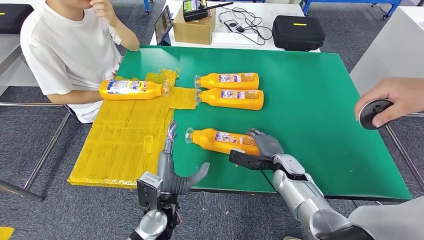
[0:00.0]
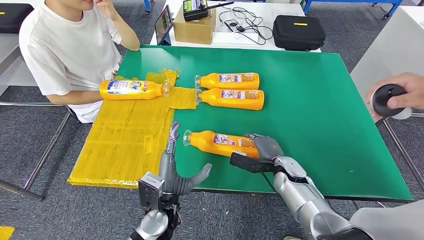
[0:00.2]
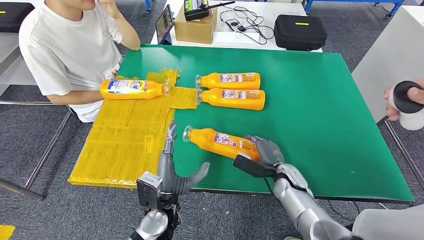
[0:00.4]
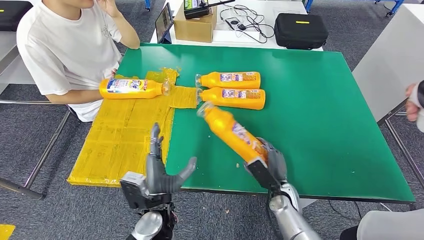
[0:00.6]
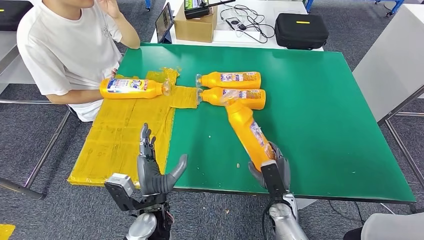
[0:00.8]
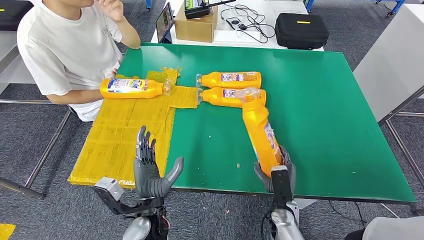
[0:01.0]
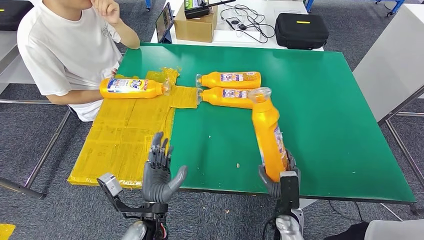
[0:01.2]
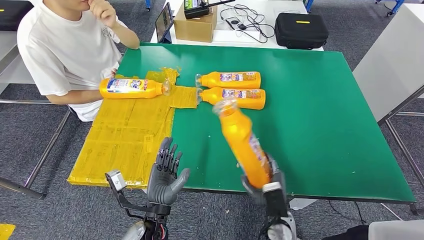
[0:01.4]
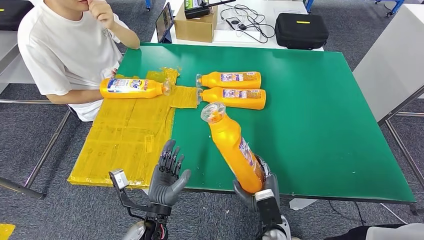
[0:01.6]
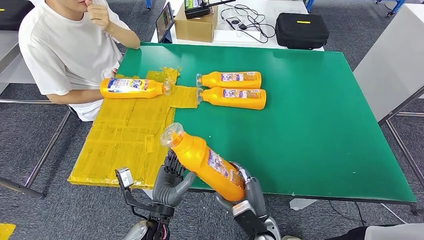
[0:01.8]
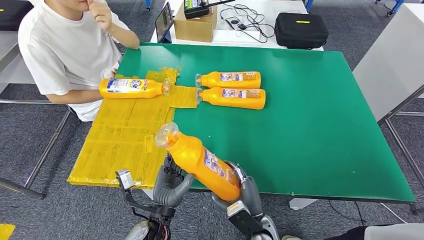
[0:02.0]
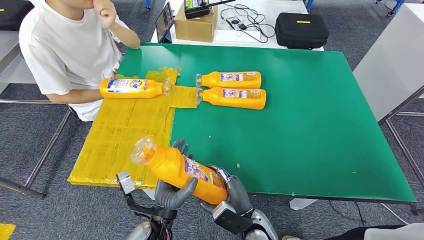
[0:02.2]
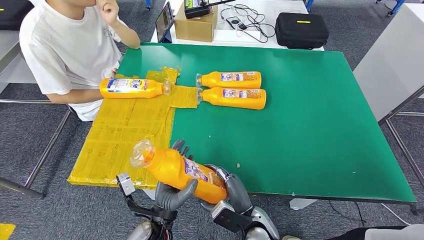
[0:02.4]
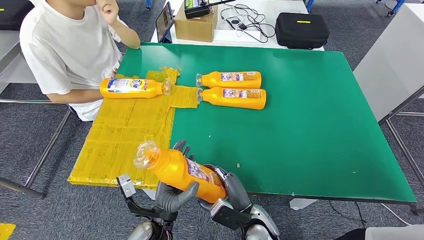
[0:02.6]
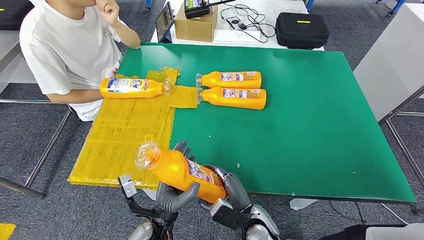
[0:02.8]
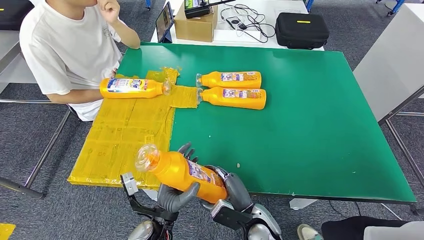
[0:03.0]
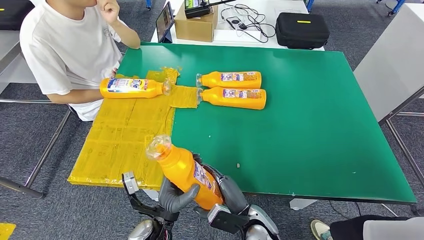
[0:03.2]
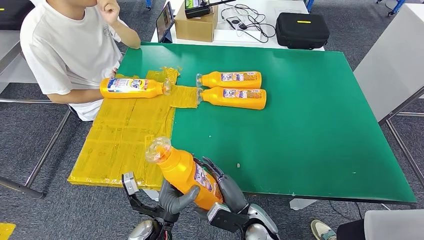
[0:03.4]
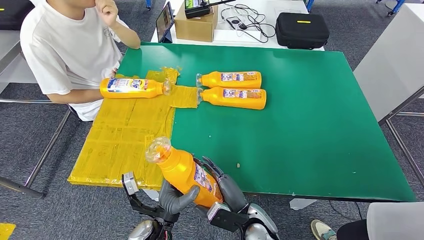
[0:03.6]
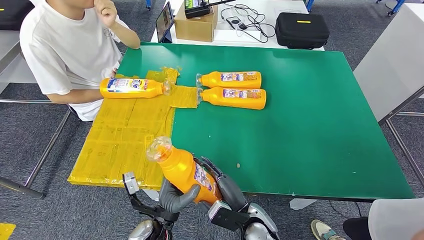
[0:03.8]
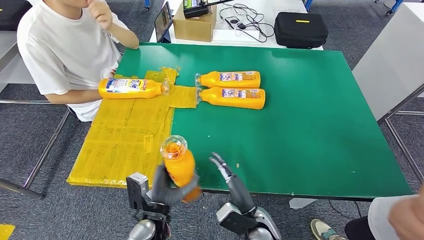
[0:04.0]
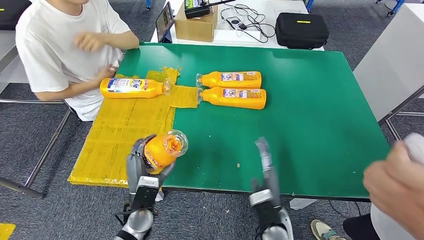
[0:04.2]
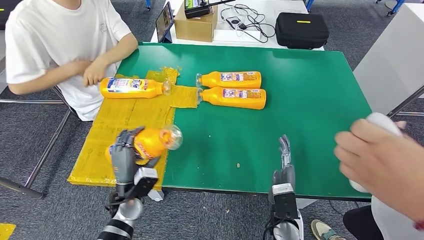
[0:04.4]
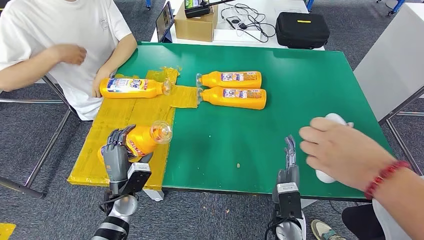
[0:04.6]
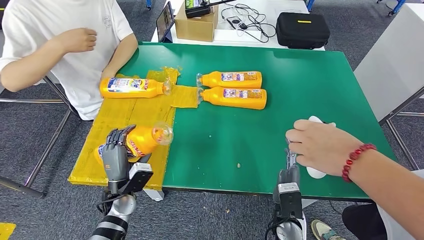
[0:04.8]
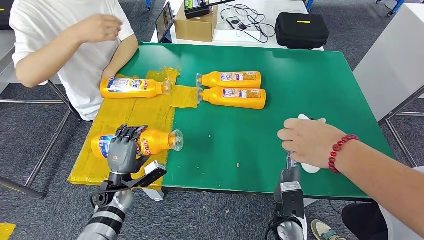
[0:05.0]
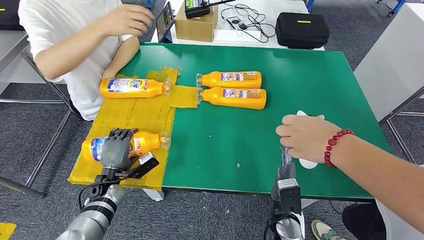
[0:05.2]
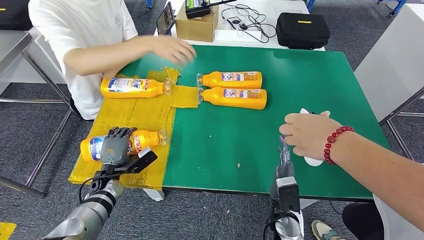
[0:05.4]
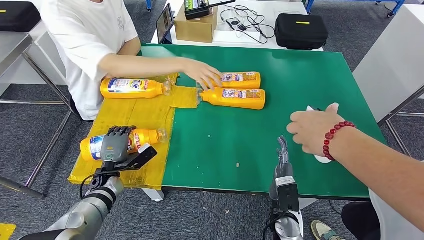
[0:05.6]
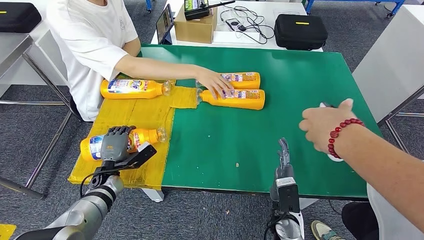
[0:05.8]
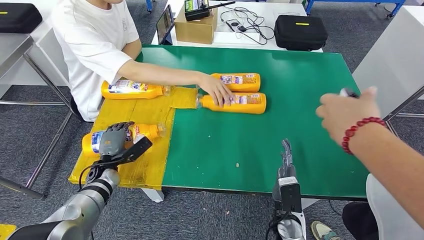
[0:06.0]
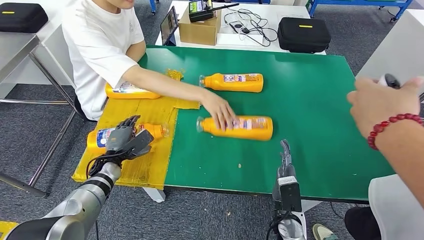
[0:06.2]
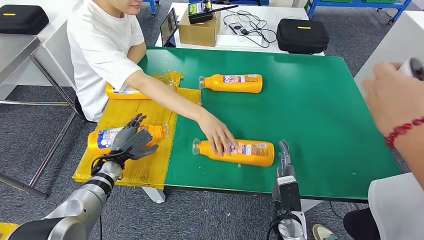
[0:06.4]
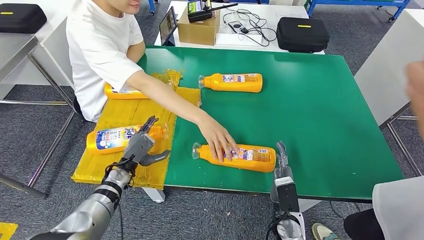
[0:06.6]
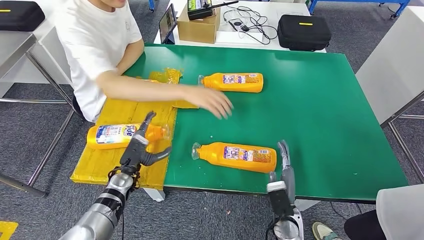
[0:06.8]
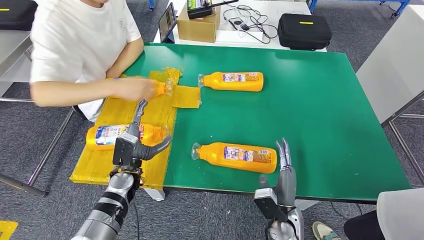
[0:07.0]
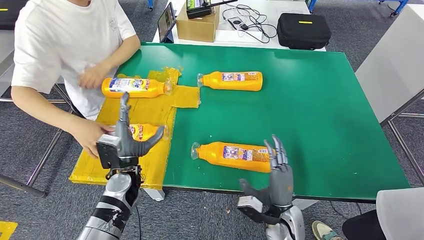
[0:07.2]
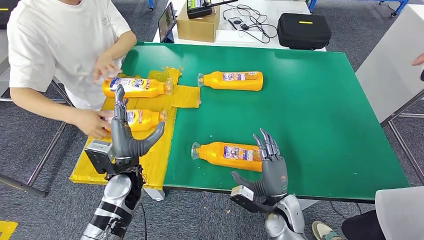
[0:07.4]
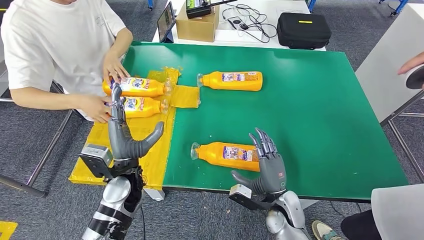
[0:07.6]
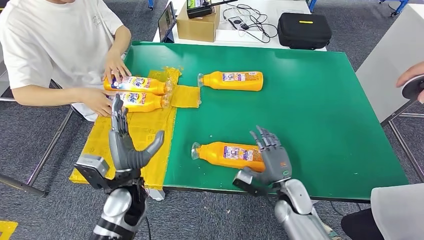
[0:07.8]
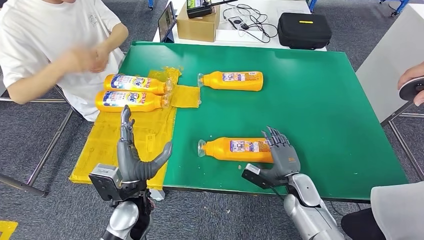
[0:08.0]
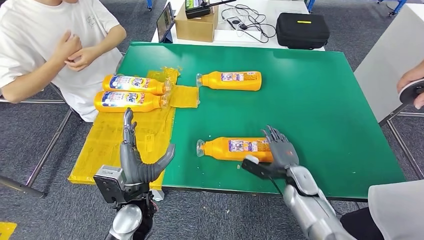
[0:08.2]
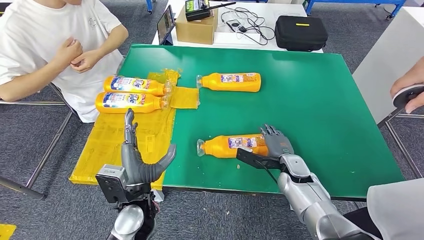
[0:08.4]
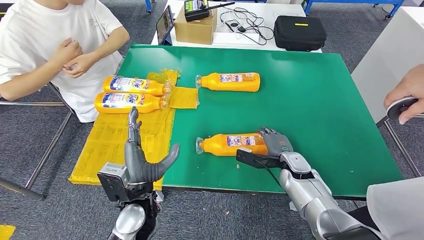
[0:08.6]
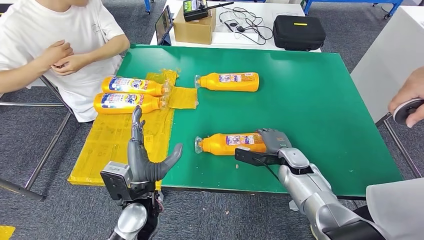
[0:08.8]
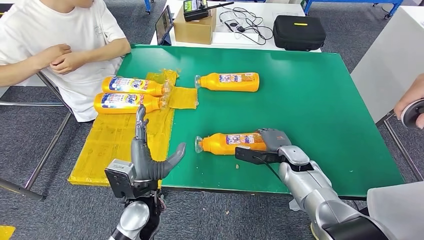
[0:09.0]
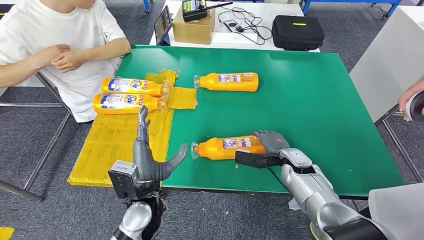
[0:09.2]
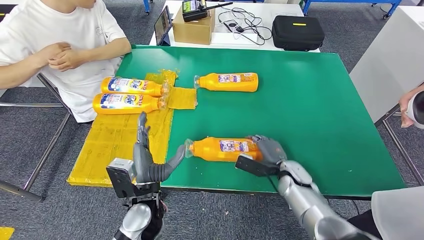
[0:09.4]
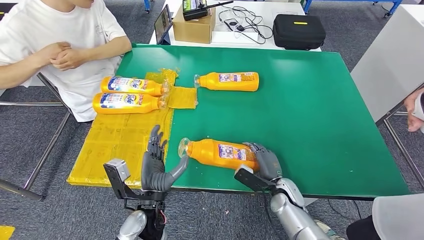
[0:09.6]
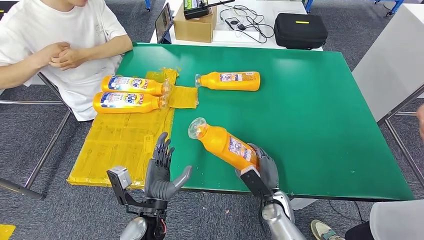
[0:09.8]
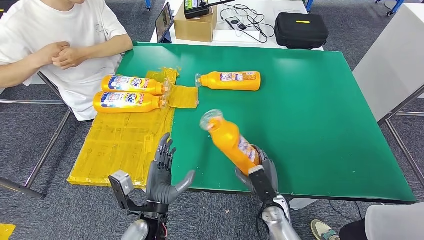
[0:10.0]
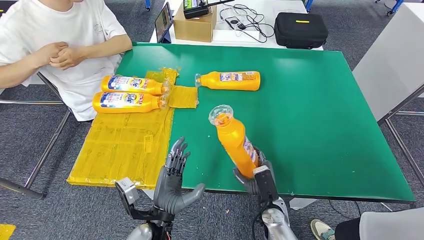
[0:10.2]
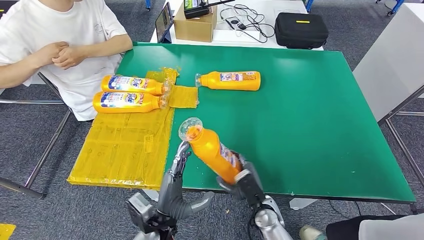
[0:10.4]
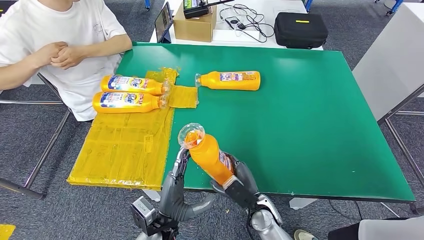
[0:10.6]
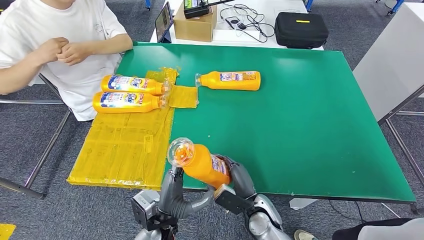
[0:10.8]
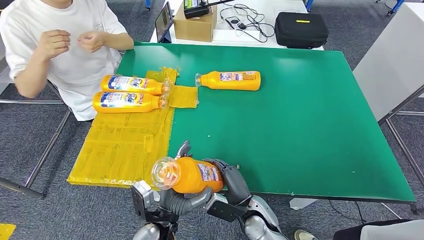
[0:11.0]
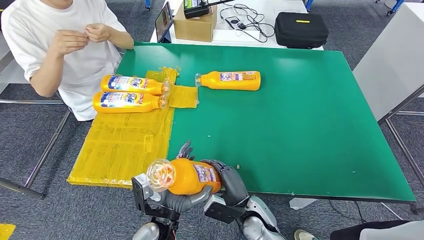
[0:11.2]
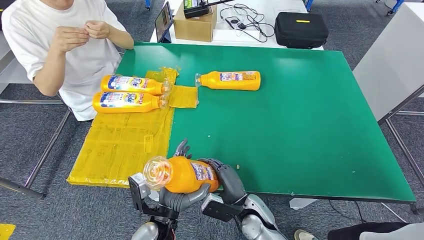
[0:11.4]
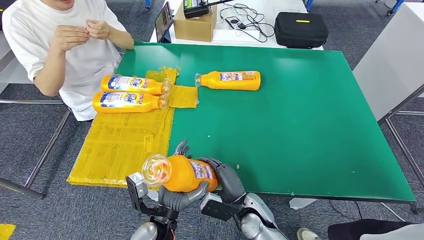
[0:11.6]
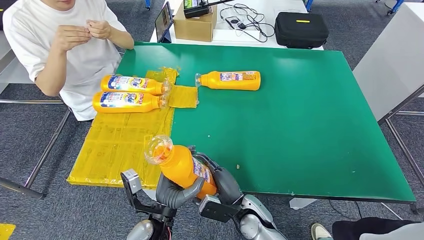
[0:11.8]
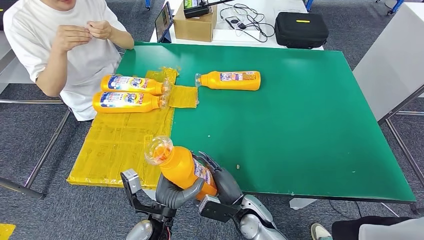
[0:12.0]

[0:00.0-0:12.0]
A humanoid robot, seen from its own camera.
Step, 0:00.0 to 0:01.6: Pick up the bottle from the table.
Step, 0:02.2 to 0:06.6: Flip the bottle to face forward.
Step, 0:08.2 to 0:10.4: Pick up the bottle from the table.

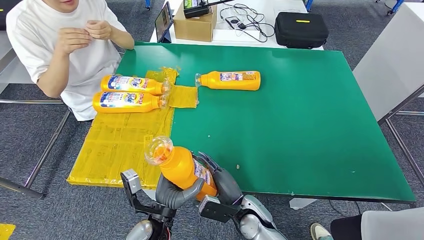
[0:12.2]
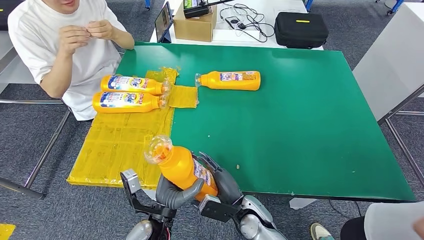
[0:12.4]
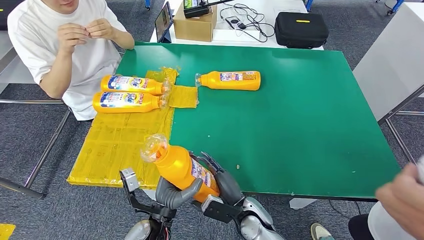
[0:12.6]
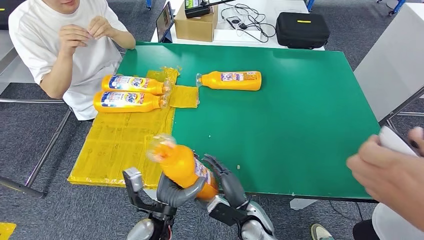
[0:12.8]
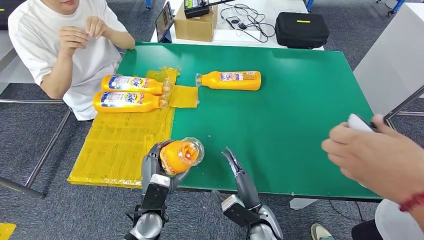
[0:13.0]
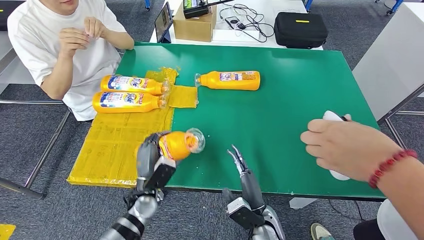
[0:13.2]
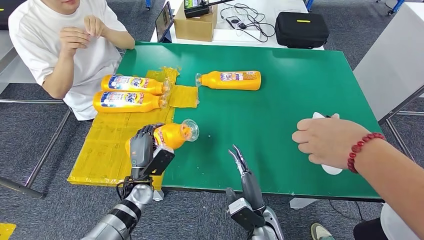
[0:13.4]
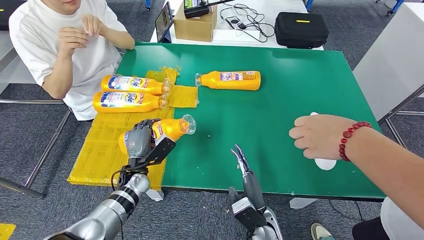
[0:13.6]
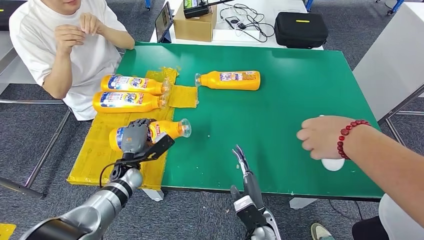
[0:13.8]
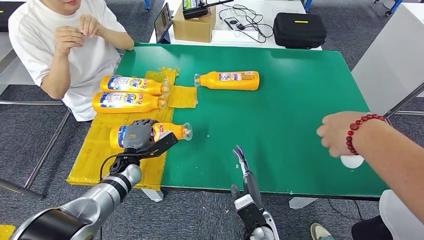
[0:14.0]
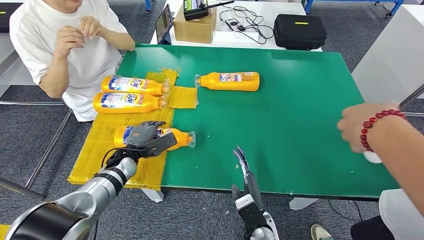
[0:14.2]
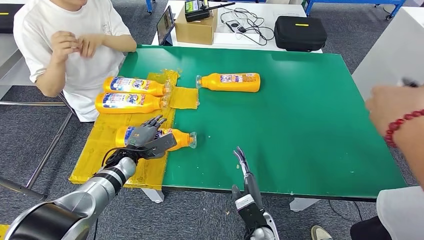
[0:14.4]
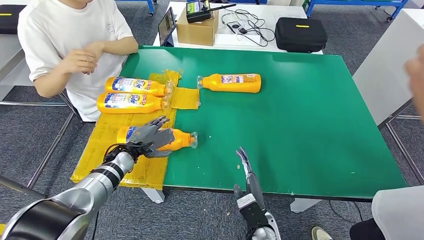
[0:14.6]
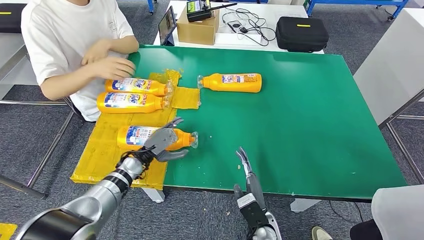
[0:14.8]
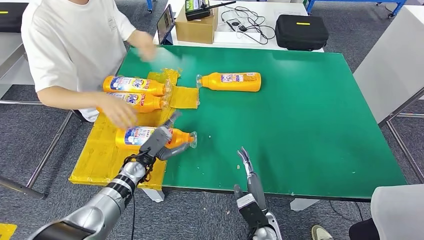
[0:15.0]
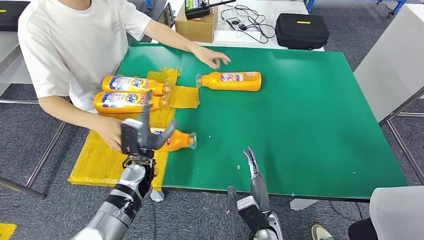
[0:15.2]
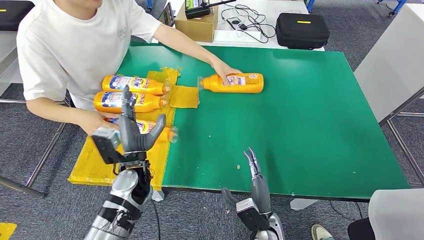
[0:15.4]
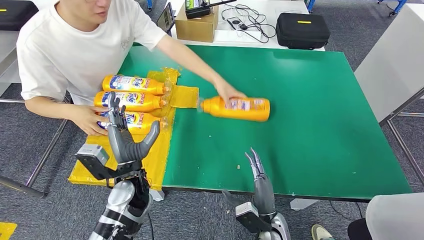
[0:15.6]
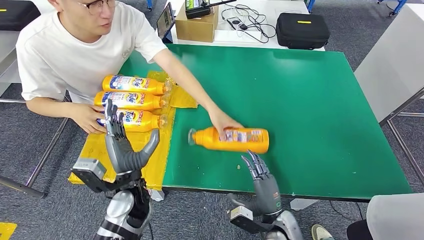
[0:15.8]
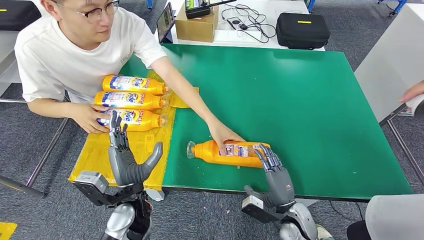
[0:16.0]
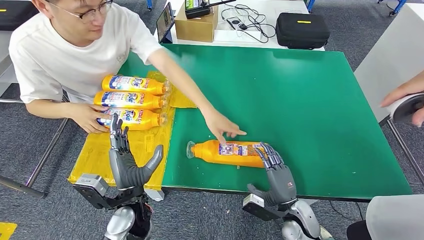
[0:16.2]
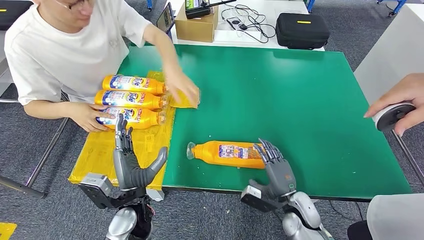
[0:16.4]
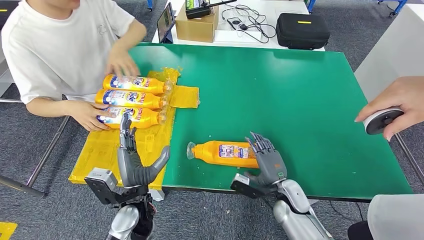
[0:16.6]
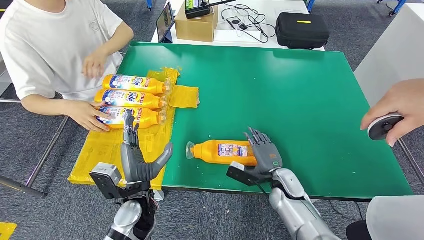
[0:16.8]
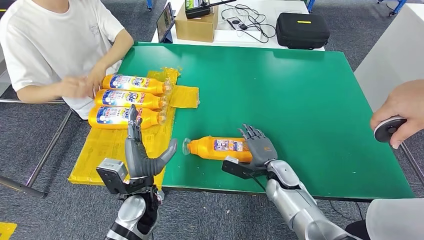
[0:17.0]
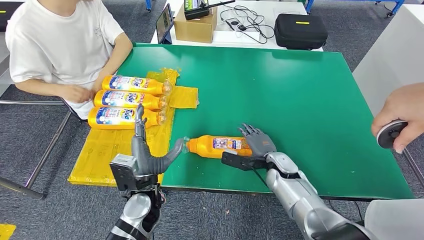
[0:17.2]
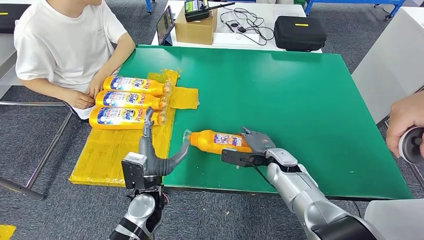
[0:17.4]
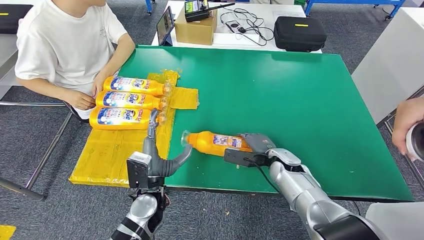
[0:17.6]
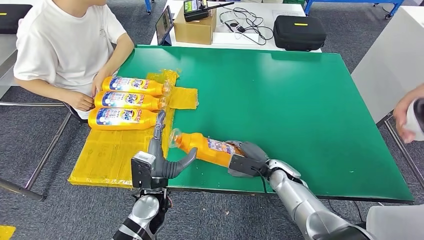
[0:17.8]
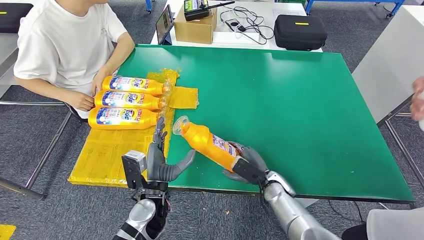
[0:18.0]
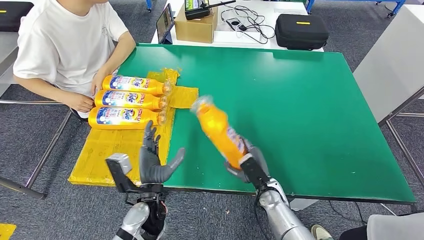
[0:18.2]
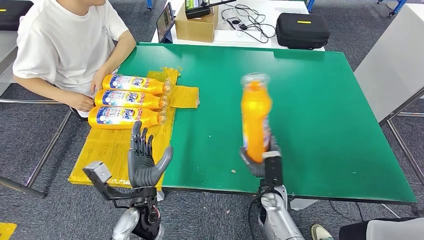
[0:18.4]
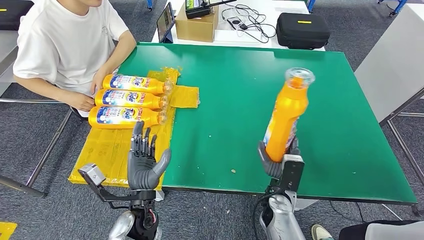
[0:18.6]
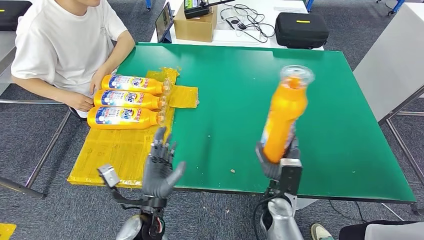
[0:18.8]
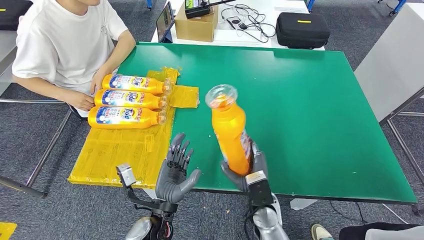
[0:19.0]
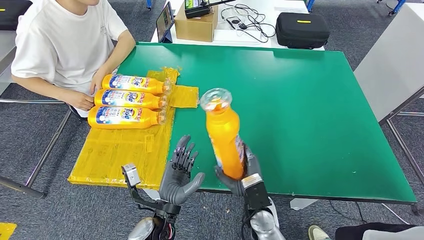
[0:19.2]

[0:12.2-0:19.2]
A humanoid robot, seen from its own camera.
Step, 0:12.2 to 0:14.8: Flip the bottle to face forward.
Step, 0:17.0 to 0:18.8: Pick up the bottle from the table.
